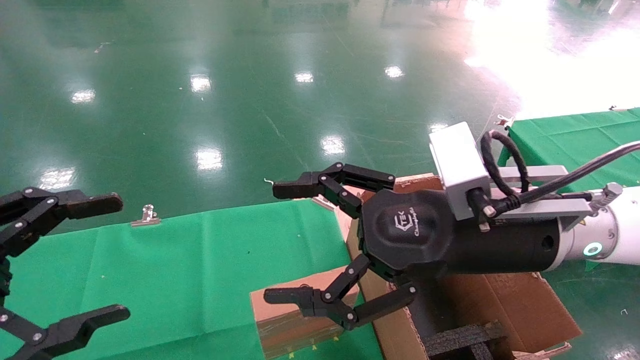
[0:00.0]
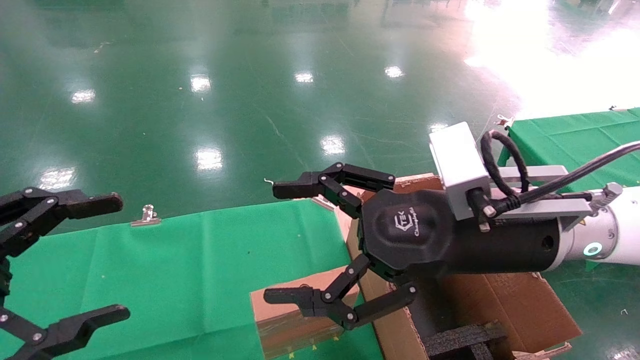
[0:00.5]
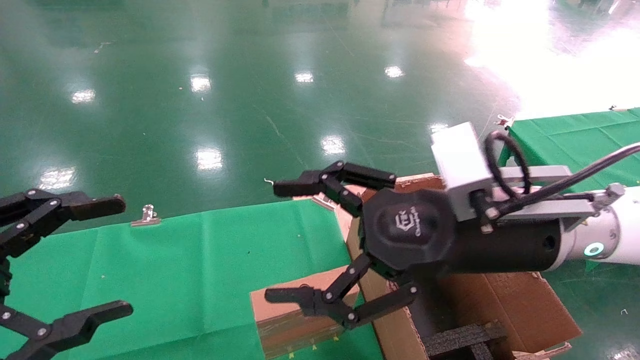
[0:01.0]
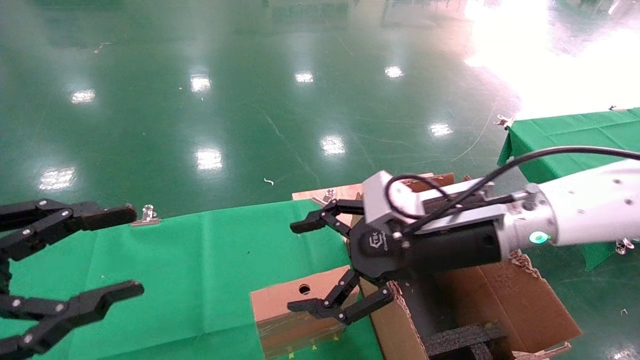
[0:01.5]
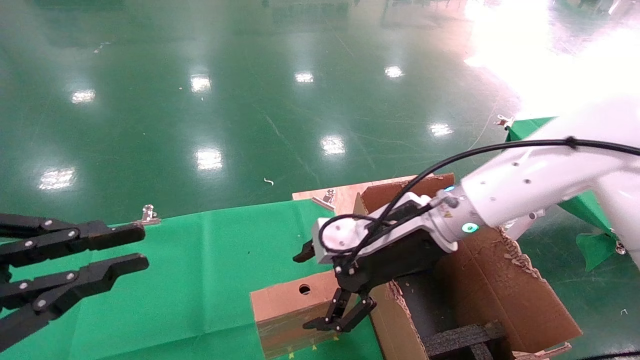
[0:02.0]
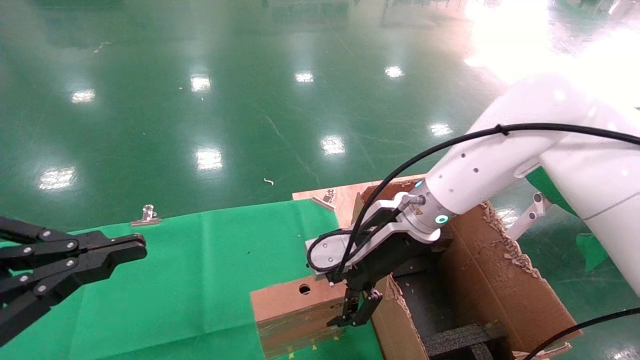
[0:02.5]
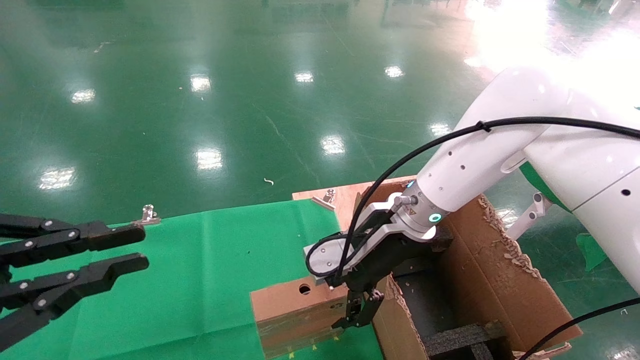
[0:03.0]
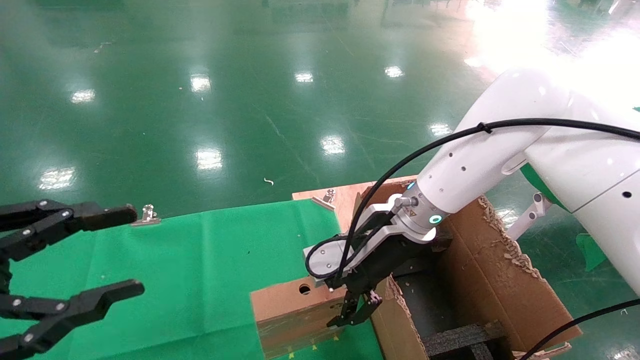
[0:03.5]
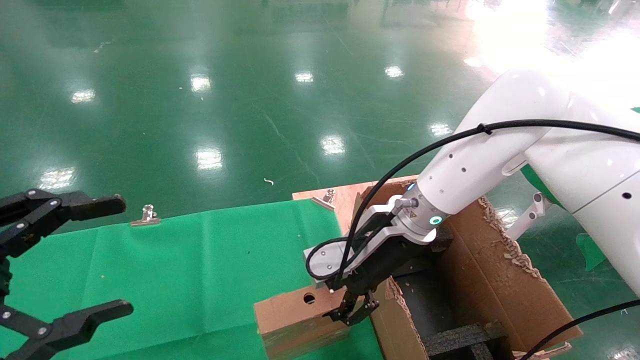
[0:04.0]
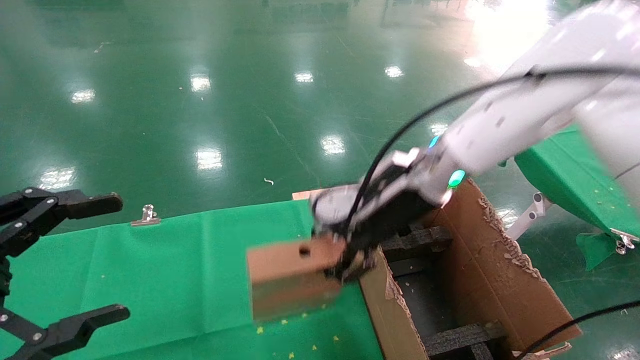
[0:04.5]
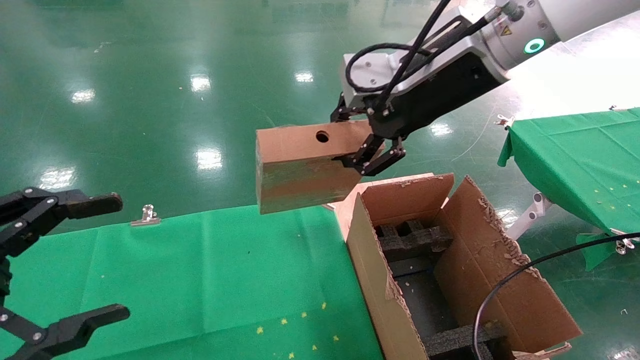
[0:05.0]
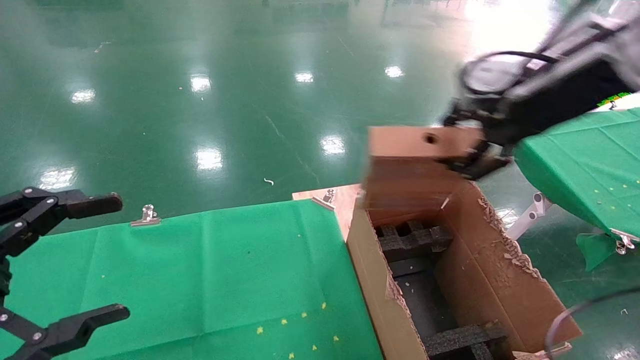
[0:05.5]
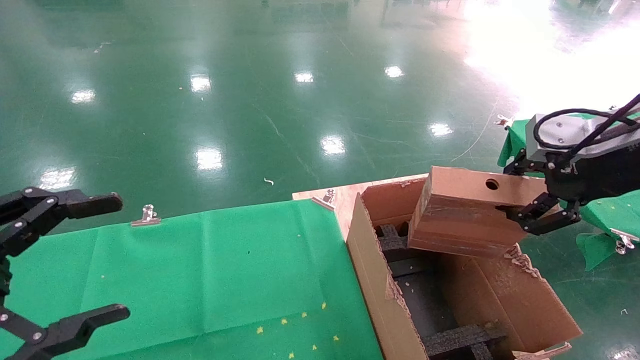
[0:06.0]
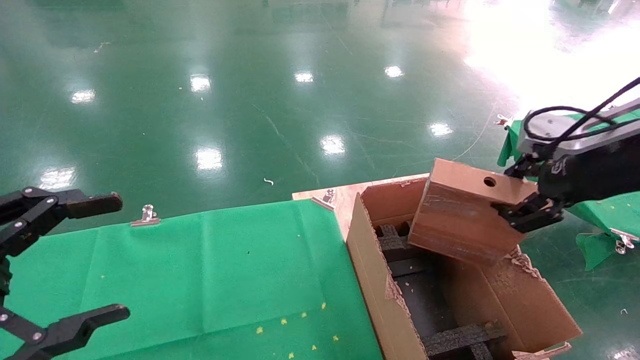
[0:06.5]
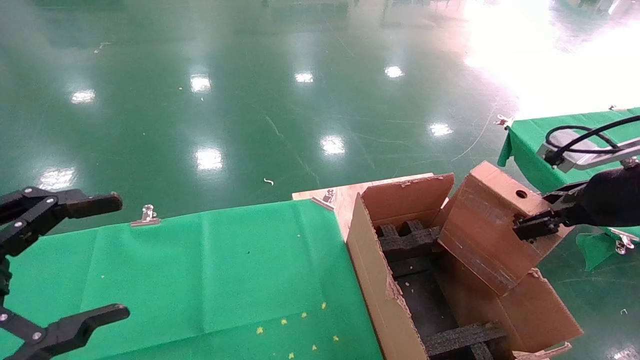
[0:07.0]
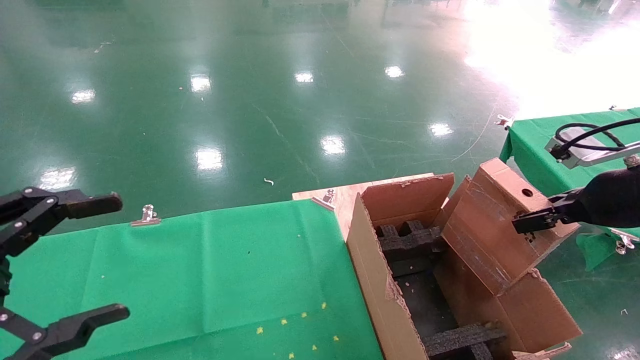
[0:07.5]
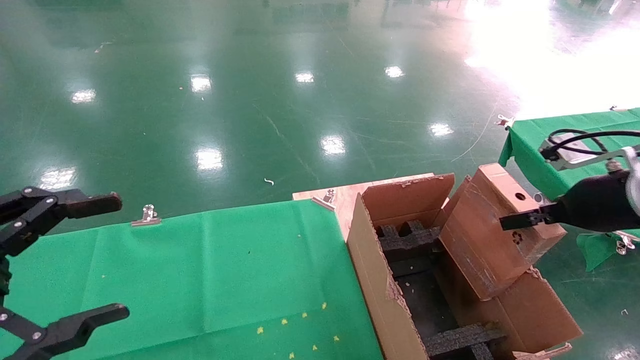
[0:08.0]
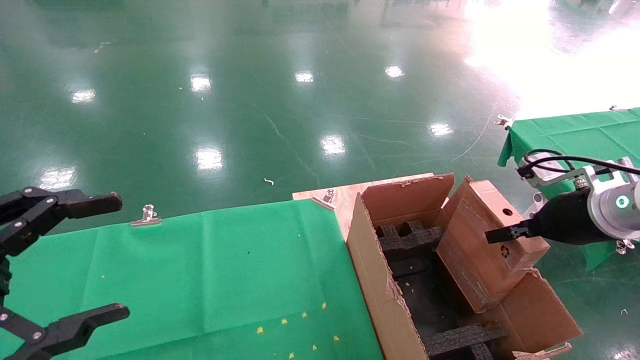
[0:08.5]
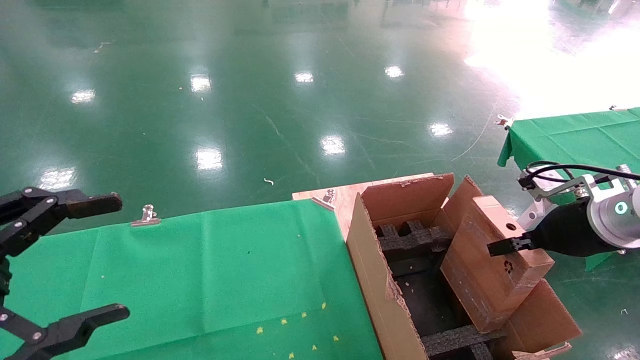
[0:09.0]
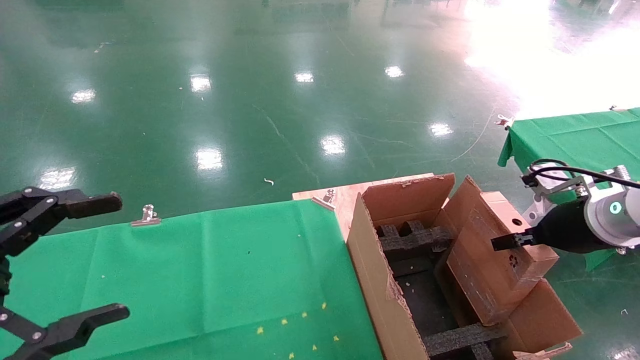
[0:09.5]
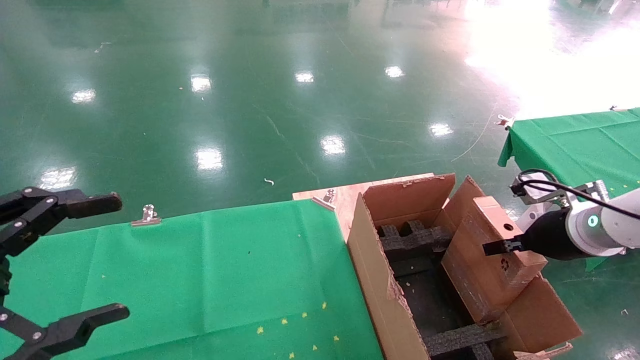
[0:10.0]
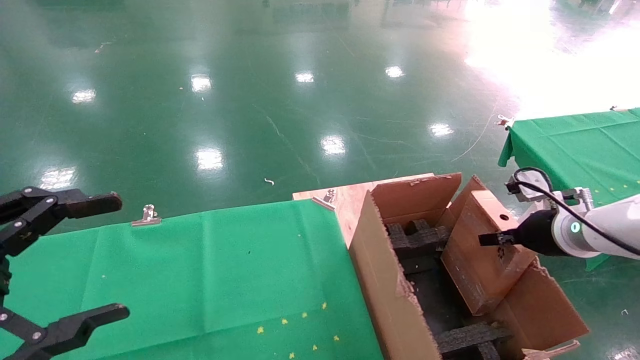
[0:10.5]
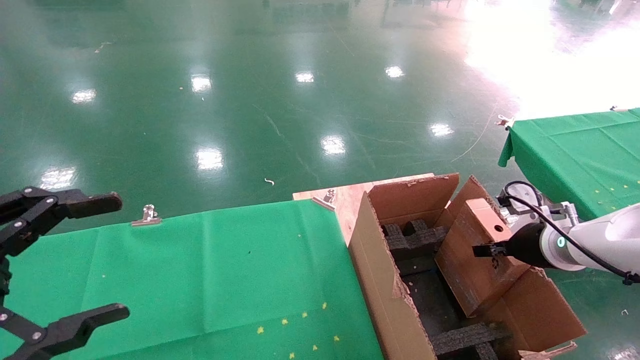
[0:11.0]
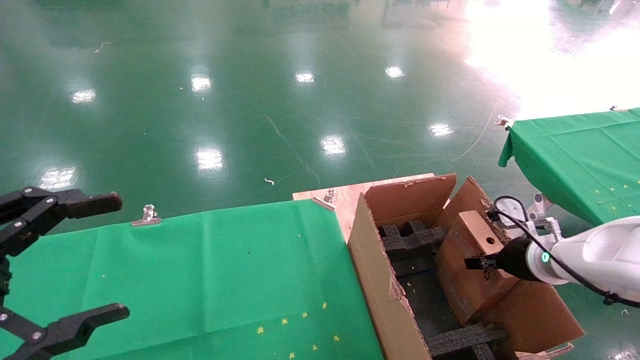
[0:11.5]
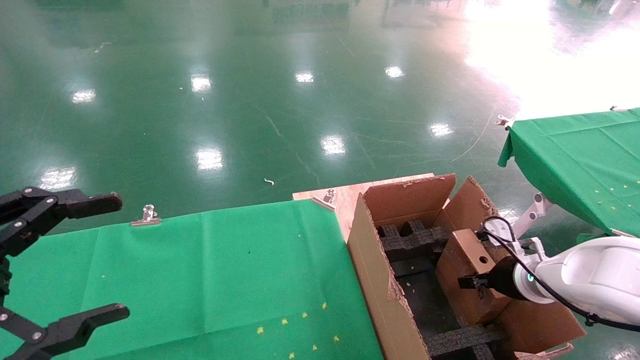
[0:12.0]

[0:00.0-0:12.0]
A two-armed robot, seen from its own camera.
Task of the whole recording: using a robotic arm to pick up a cardboard box and palace it the carton.
Step, 0:01.5 to 0:03.5: Pick up the mouse and the power cord paper box.
0:00.0 to 0:02.0: The left gripper closes up. The right gripper goes roughly 10 cm forward.
0:02.0 to 0:04.0: The left gripper opens; the right gripper closes up.
0:04.0 to 0:06.0: The right gripper is displaced to the right, upward and backward by about 30 cm.
0:06.0 to 0:08.0: The right gripper goes roughly 10 cm downward.
0:08.0 to 0:10.0: The right gripper travels downward by some 5 cm.
0:10.0 to 0:12.0: The right gripper moves downward, approximately 10 cm.

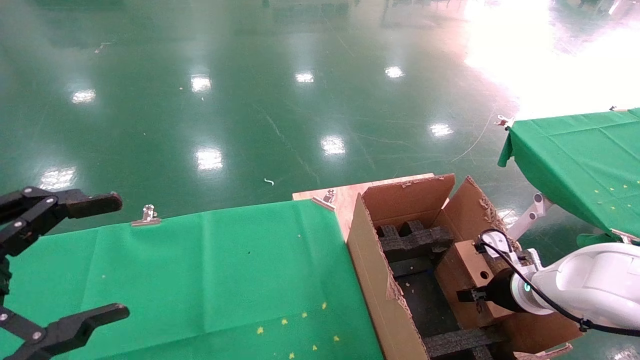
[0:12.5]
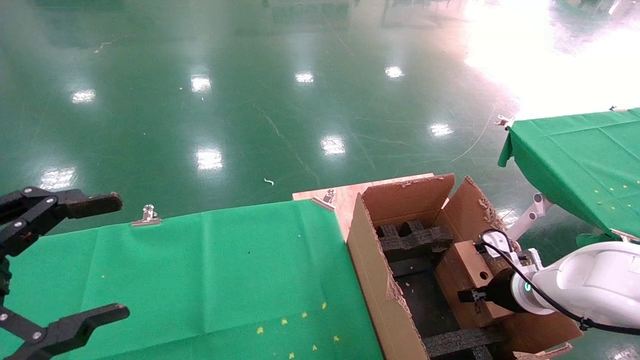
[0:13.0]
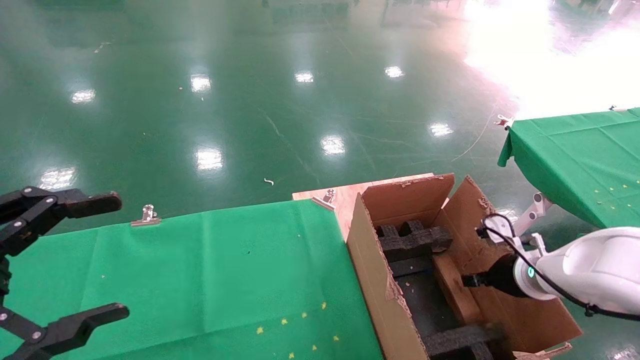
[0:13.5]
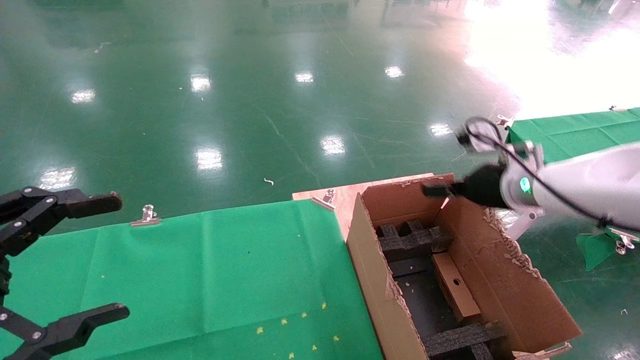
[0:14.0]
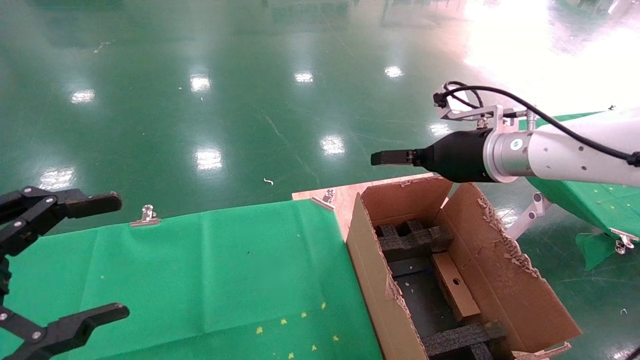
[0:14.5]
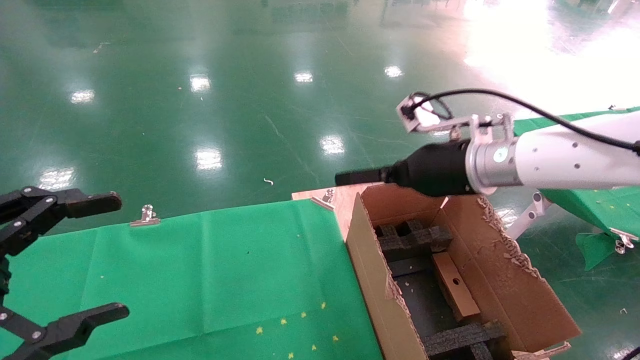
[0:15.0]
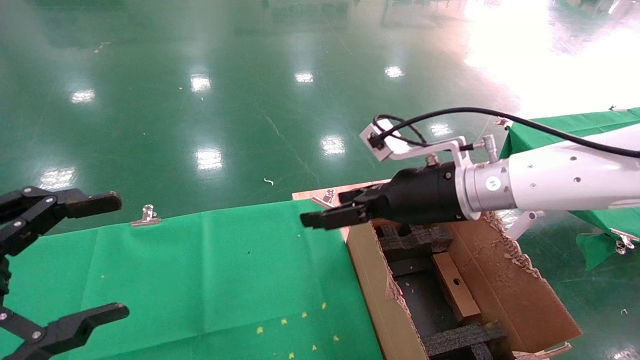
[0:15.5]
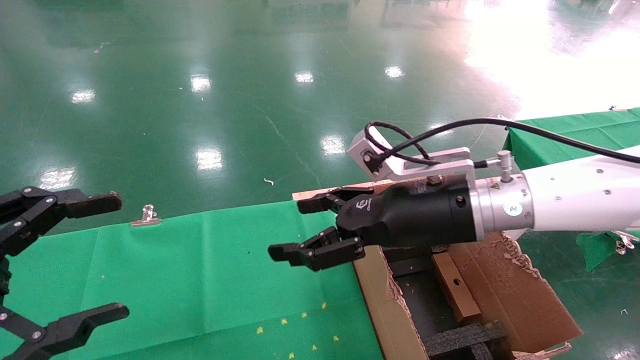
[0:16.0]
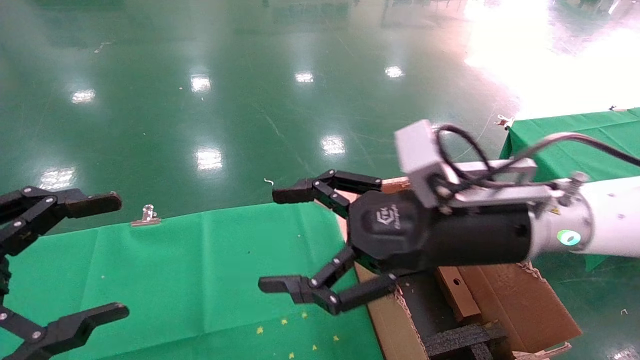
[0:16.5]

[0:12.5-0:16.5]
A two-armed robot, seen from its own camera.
Task of the whole recording: using a robotic arm to pick up a cardboard box and palace it the carton.
0:12.5 to 0:14.5: The right gripper shifts some 25 cm upward and to the left, and opens its fingers.
0:14.5 to 0:16.5: The right gripper shifts about 15 cm backward and to the left.

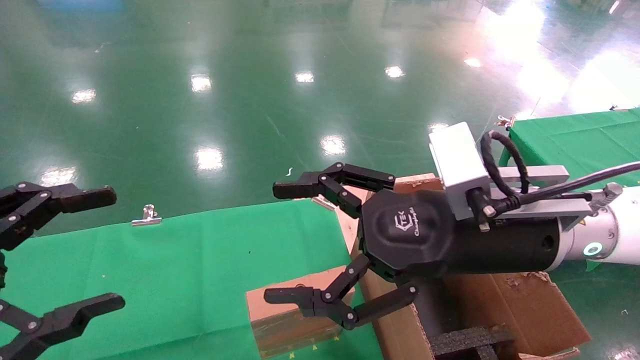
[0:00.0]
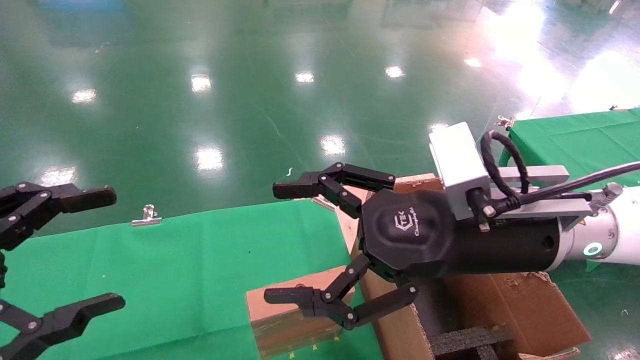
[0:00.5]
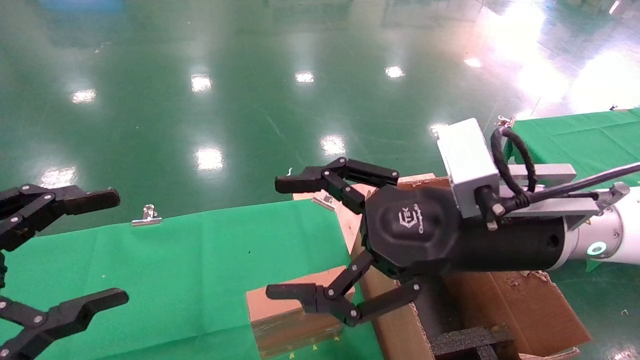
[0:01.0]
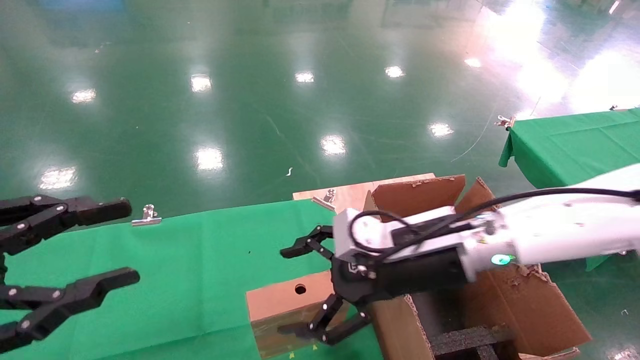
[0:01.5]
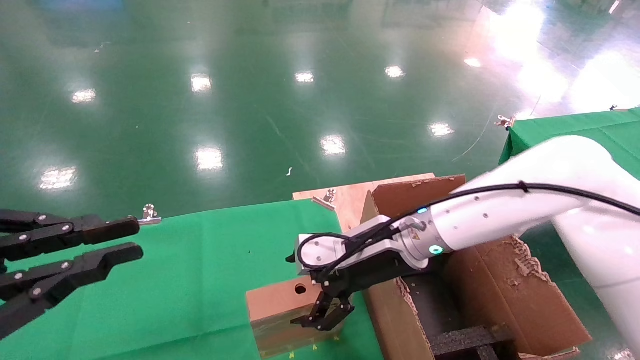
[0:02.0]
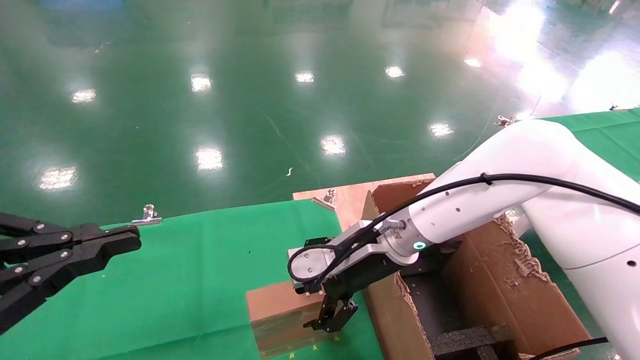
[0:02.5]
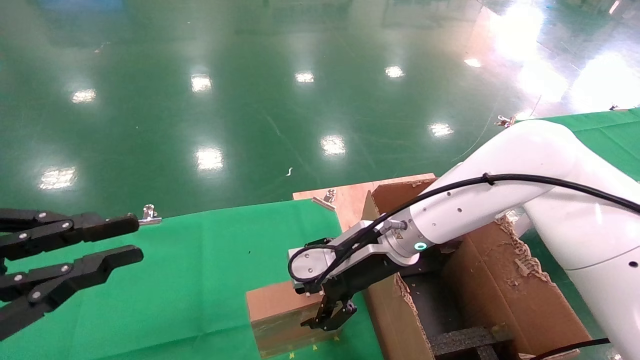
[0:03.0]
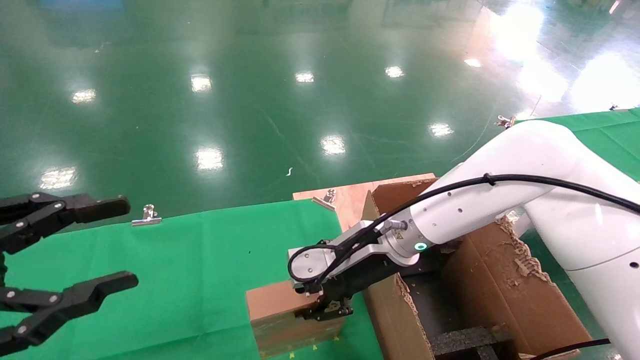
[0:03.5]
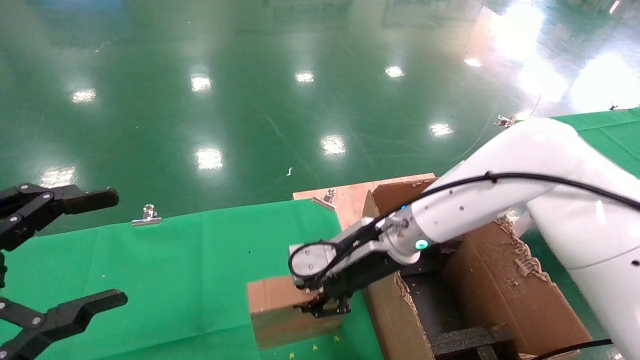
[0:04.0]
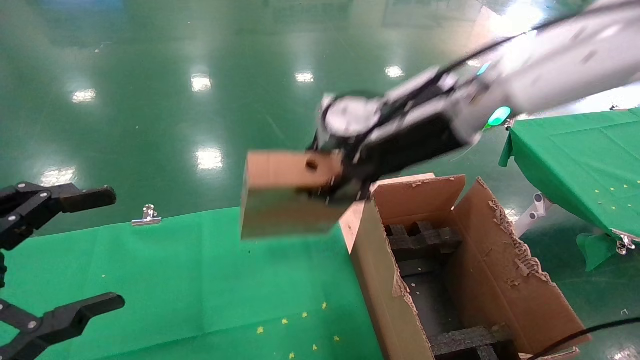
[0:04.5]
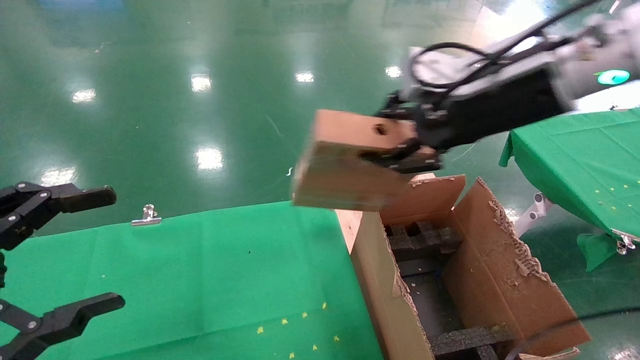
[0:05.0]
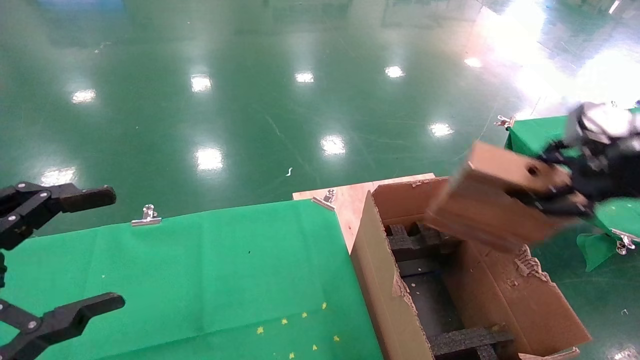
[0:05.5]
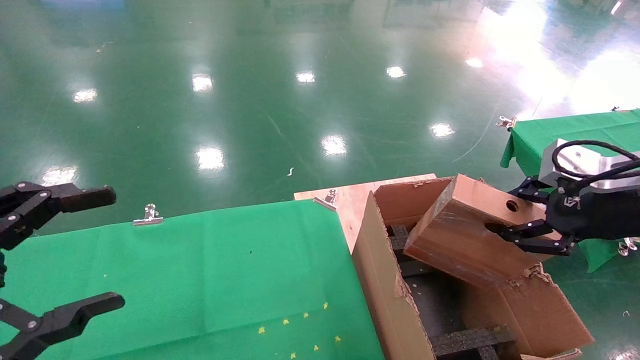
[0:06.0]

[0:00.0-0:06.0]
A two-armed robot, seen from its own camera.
Task of the whole recording: using a robotic arm to pick up a cardboard box and palace it the carton.
Step, 0:01.5 to 0:03.5: Pick up the mouse and the power cord paper box.
0:00.0 to 0:02.0: The left gripper closes its fingers. Meanwhile the right gripper is displaced forward, downward and to the left by roughly 15 cm.
0:02.0 to 0:04.0: The left gripper opens. The right gripper closes.
0:04.0 to 0:06.0: The right gripper moves to the right and backward, roughly 30 cm.
